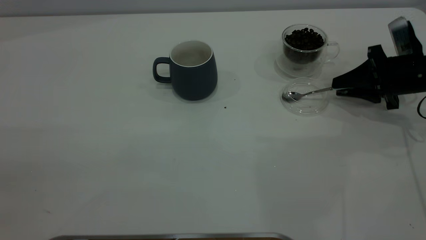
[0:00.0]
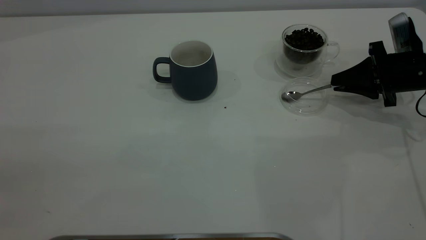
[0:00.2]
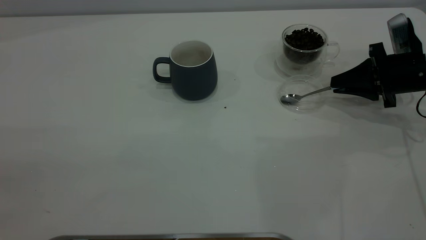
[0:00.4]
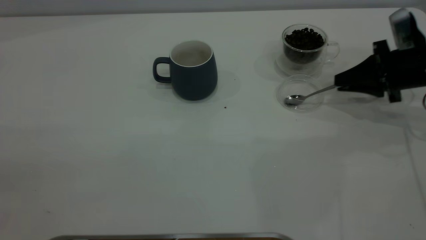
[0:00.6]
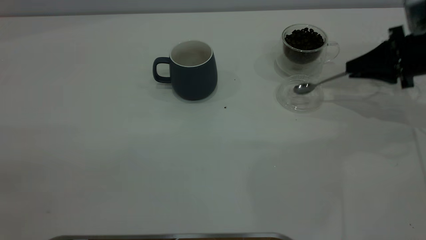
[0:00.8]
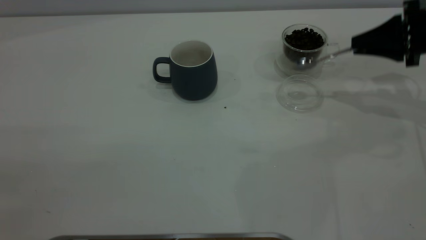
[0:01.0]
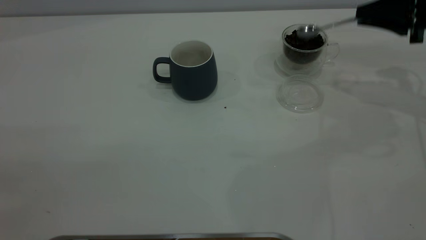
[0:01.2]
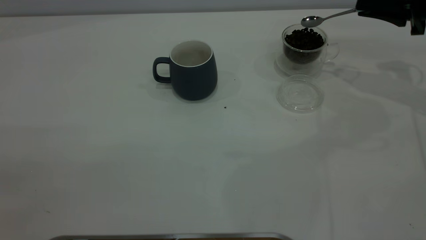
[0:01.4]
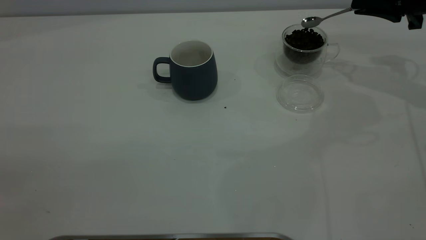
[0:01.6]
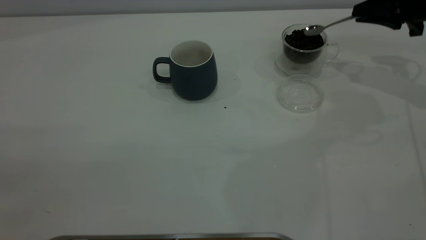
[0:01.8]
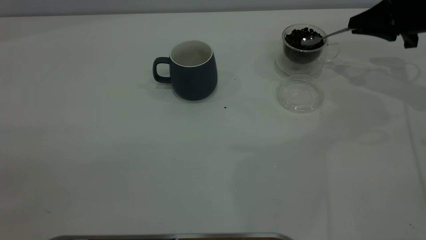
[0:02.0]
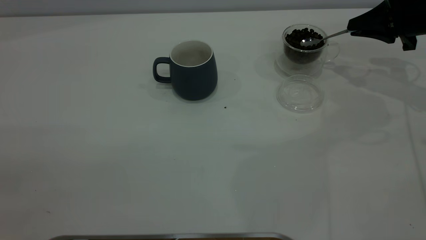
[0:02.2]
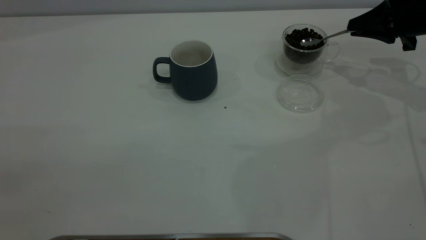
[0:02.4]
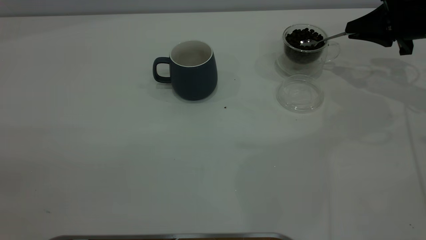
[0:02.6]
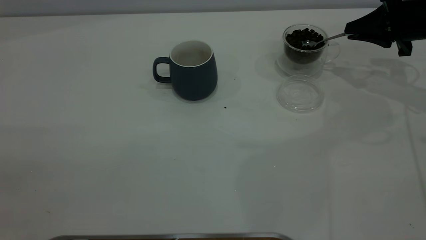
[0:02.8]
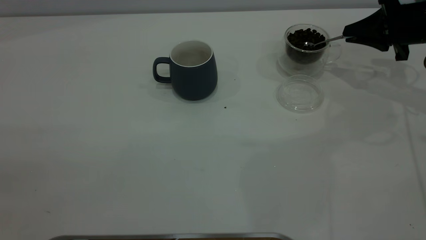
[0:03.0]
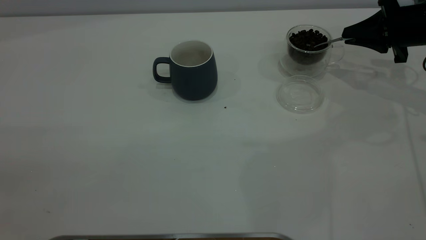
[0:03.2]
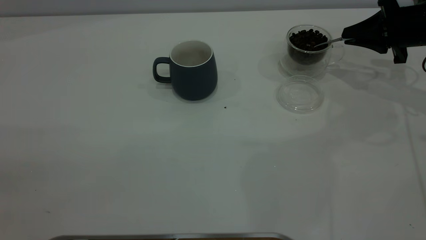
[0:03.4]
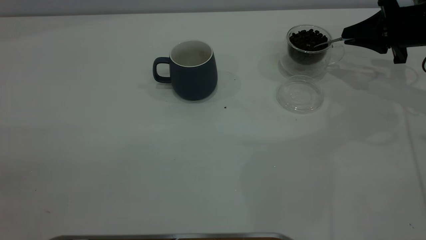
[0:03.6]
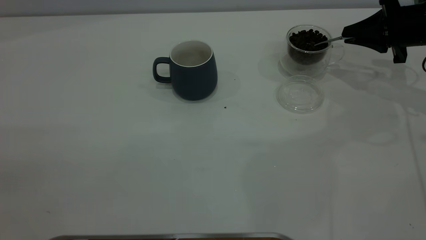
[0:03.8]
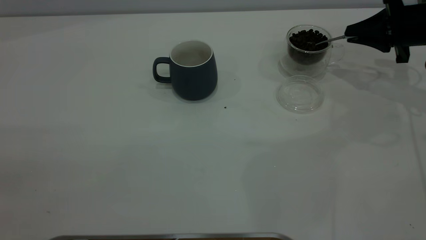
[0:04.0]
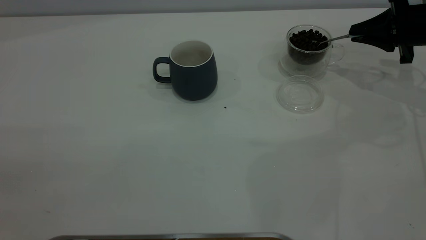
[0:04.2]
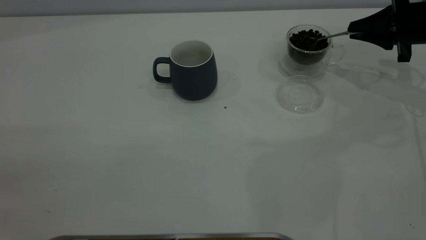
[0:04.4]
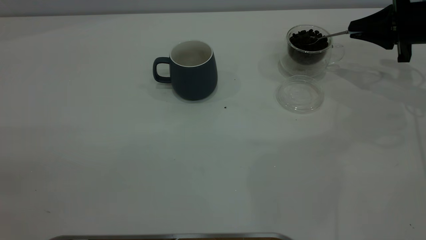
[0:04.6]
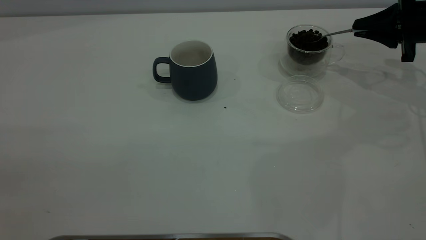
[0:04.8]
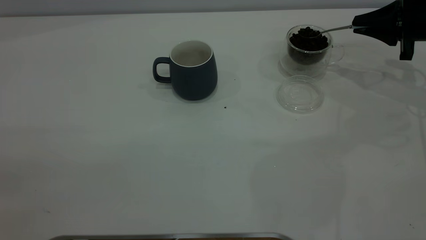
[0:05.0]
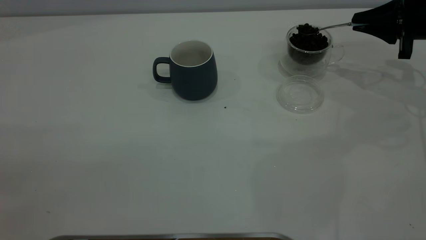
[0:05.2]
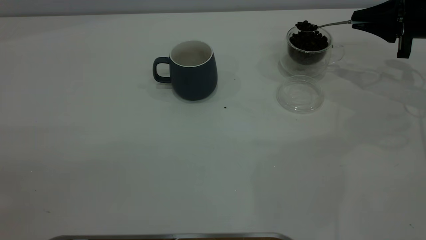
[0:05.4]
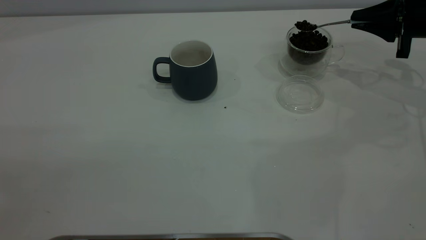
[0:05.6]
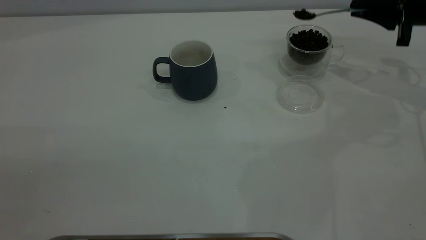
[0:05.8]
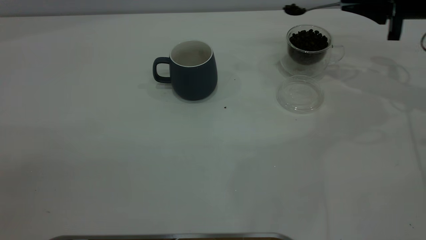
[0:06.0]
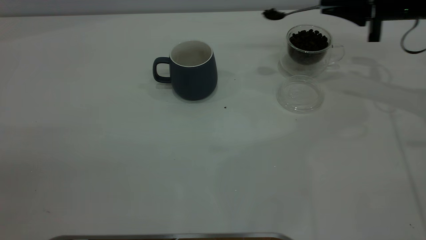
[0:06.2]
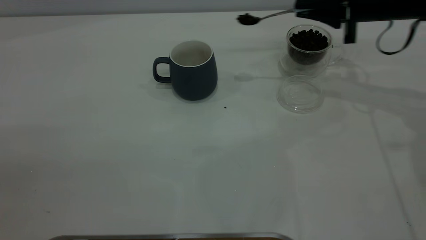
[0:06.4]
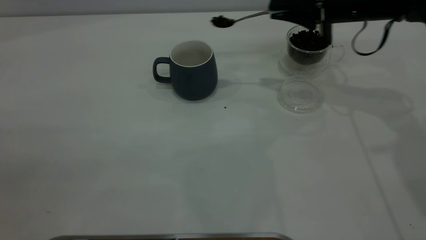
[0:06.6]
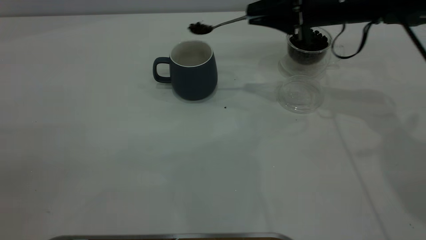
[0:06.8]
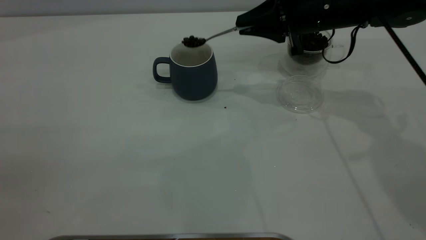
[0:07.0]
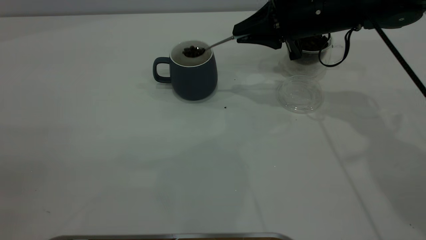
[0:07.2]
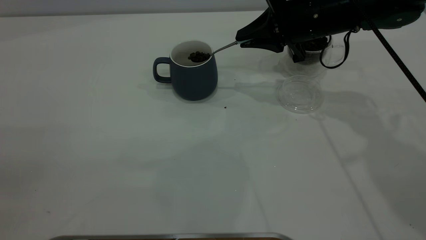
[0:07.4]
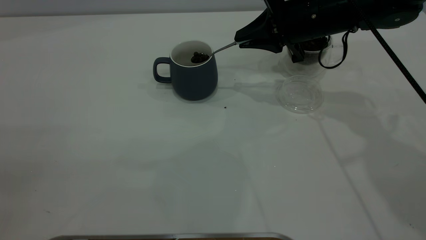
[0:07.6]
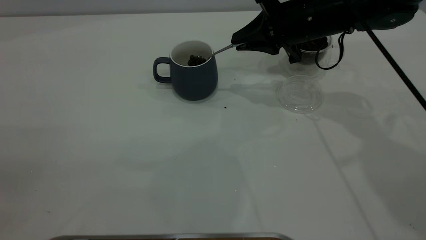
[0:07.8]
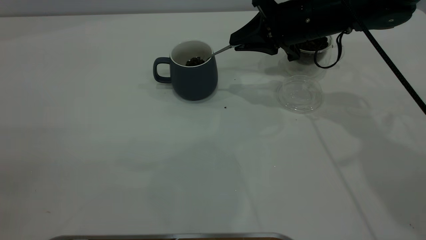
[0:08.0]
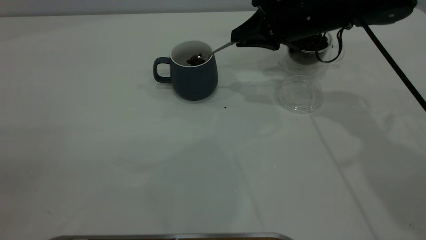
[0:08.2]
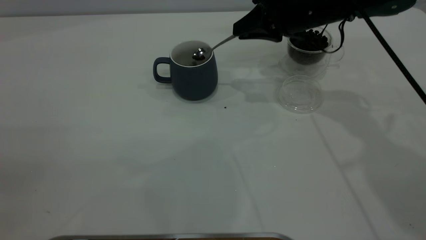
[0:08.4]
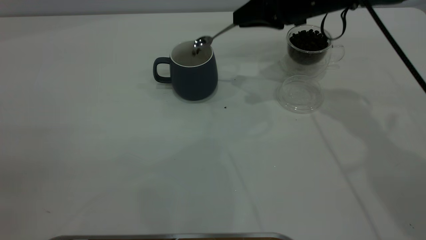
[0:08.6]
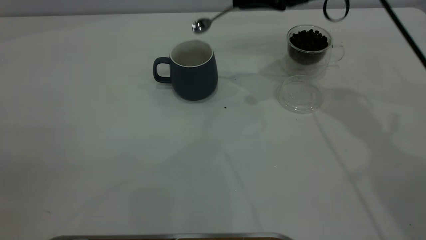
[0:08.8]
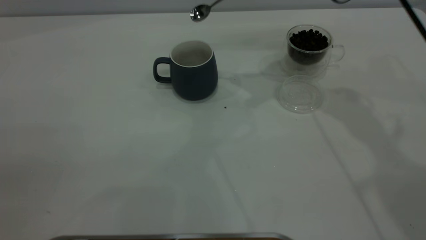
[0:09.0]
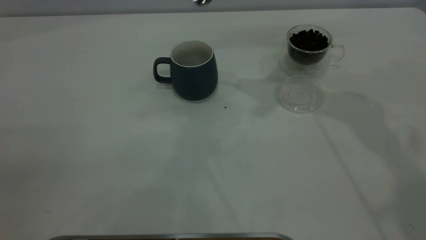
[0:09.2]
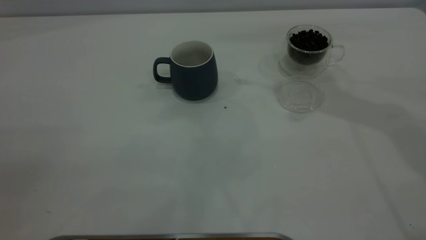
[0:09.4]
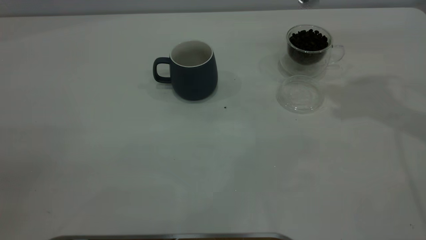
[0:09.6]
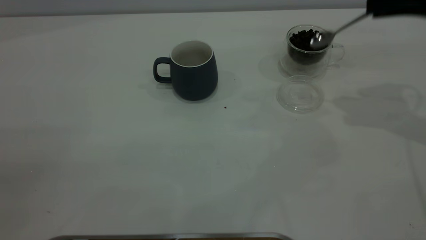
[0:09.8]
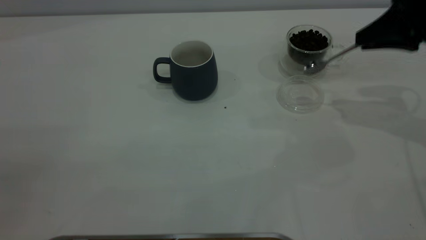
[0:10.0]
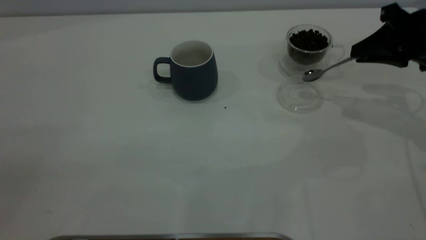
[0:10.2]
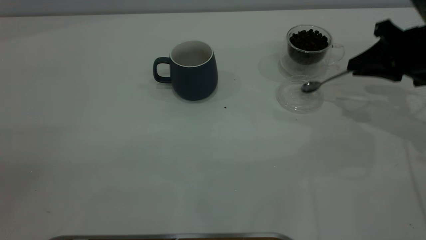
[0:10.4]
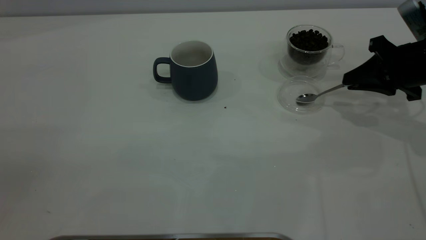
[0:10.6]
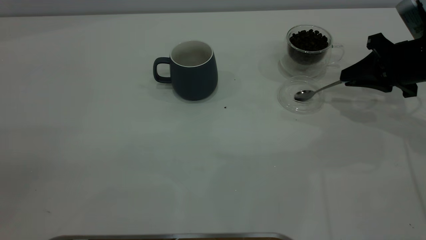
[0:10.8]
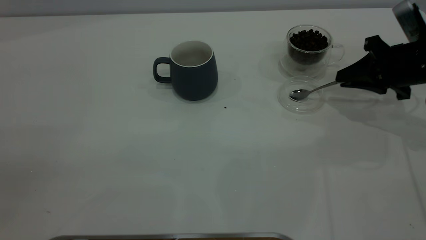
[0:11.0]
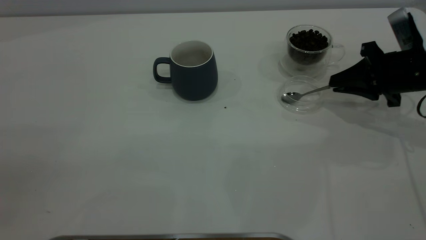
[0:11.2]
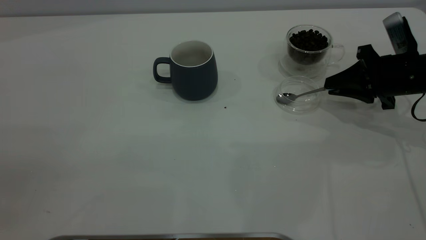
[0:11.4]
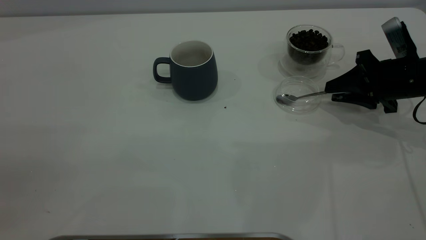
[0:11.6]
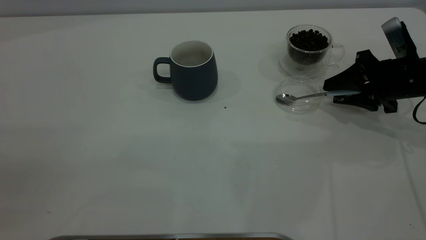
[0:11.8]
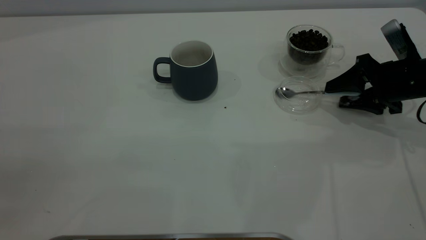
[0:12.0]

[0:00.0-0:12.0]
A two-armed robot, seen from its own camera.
Task of the whole recording: the left gripper place the grey cup in the center of the table, the right gripper take the blue spoon from the cup lid and scoop out the coffee beans from the coffee cup and put them into the grey cup, the right gripper put the spoon back into the cup lid.
Step, 0:01.0 to 0:08.6: Scoop a spoonful of beans into the cup.
0:00.0 to 0:01.6: The right gripper heads upward and forward, covering approximately 10 cm.
0:01.6 to 0:03.0: The right gripper shifts about 5 cm downward.
0:03.0 to 0:06.0: The grippers stay close to where they were, moving slightly.
0:06.0 to 0:07.6: The right gripper goes some 15 cm to the left.
0:07.6 to 0:09.0: The right gripper heads upward, covering about 10 cm.
0:09.0 to 0:10.4: The right gripper travels to the right, downward and backward by approximately 20 cm.
0:10.4 to 0:12.0: The right gripper moves roughly 5 cm, and opens.

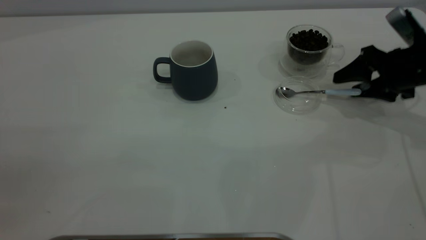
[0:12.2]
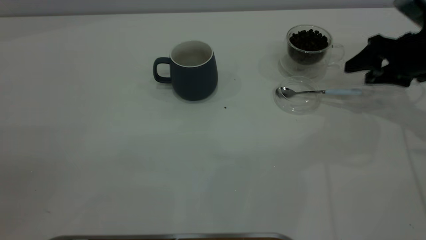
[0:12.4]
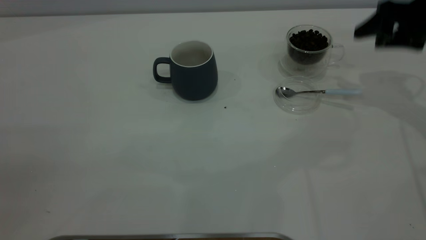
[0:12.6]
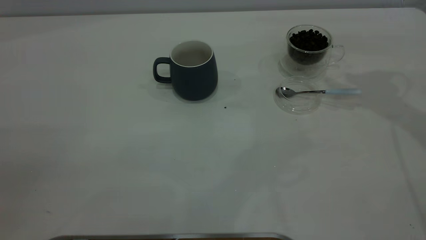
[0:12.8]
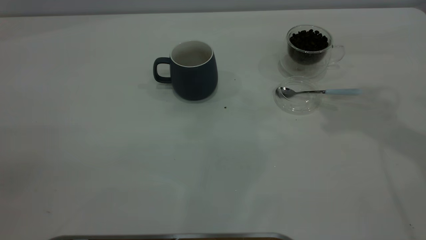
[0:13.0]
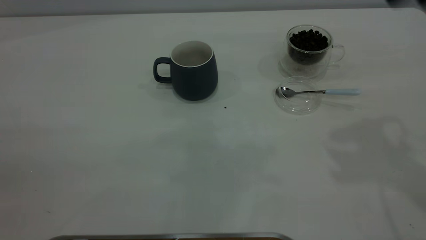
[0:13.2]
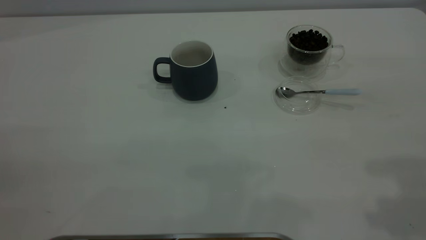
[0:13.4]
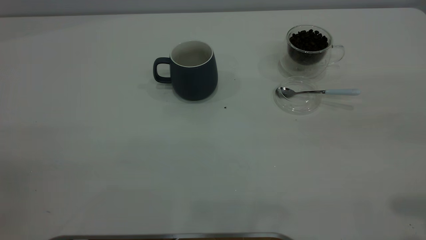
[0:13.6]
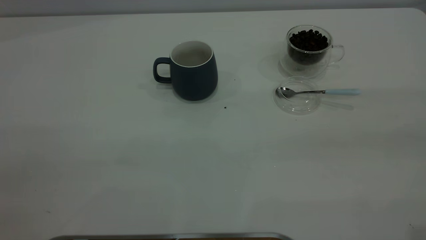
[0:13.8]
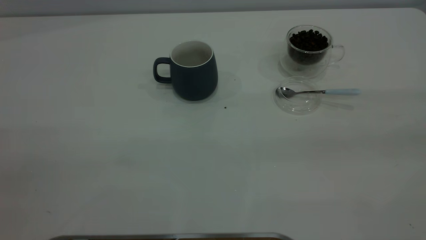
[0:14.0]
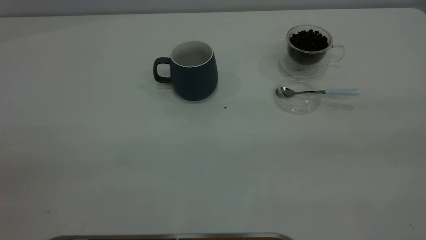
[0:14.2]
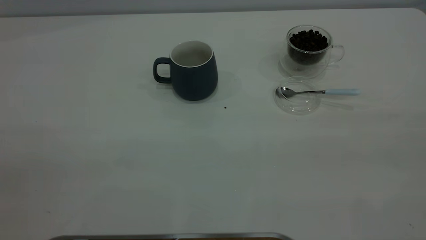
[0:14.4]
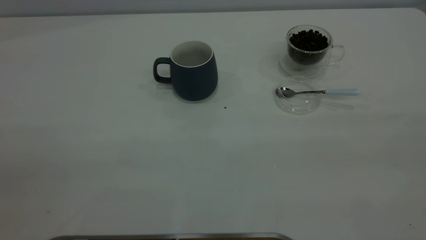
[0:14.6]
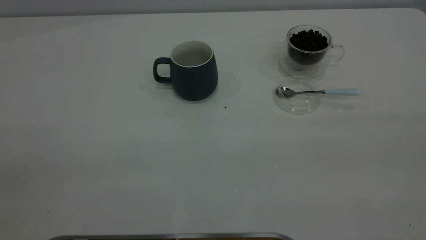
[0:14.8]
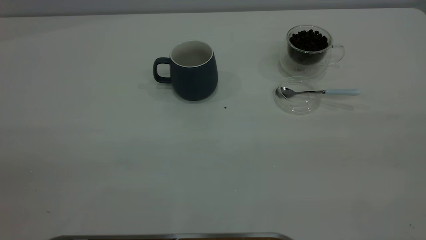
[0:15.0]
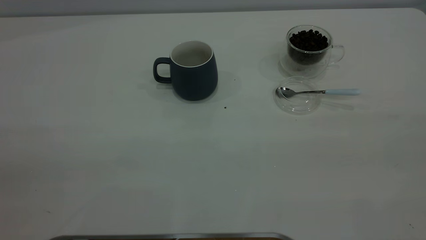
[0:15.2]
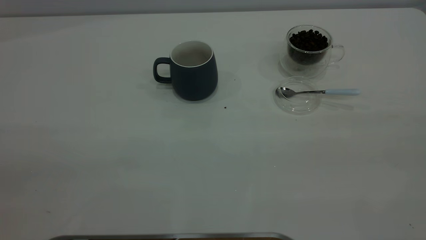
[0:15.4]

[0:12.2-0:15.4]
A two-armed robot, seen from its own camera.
Task of the whole recording: the left gripper place the grey cup in the center of the table, the right gripper take the blue spoon from the cup lid and scoop out the coffee beans from the coffee cup and put them into the grey cup, the right gripper put the spoon back into the cup lid.
0:12.2 to 0:13.8: The right gripper shifts about 40 cm backward and upward.
